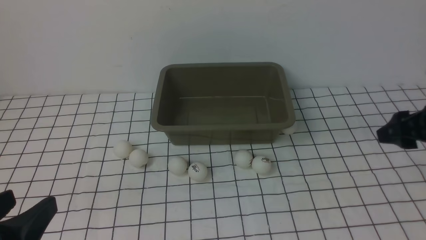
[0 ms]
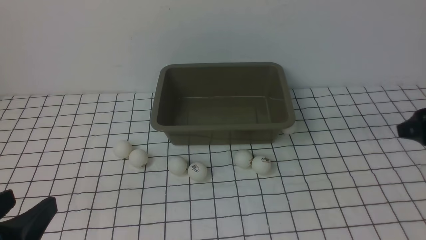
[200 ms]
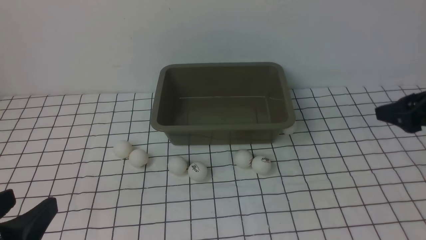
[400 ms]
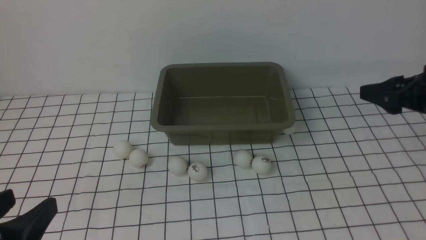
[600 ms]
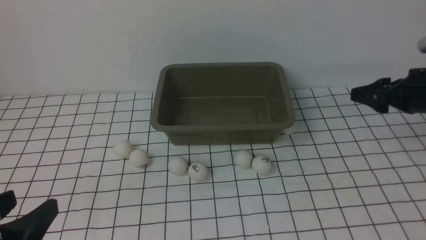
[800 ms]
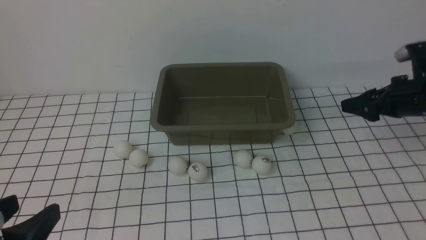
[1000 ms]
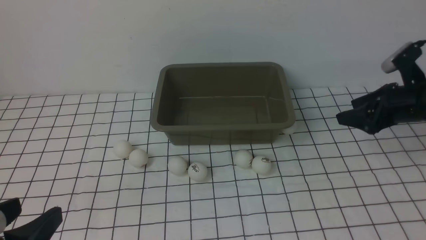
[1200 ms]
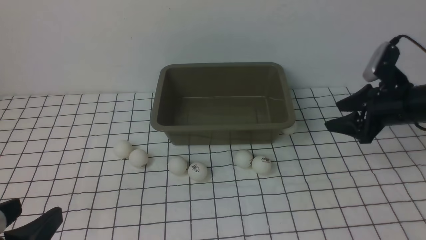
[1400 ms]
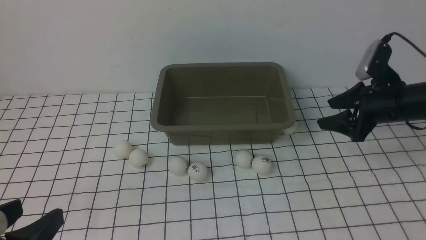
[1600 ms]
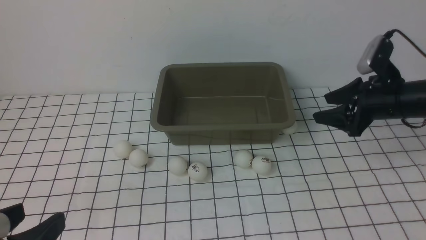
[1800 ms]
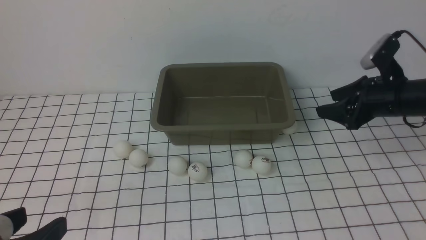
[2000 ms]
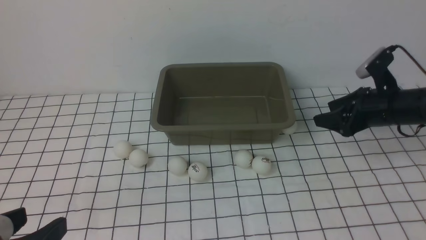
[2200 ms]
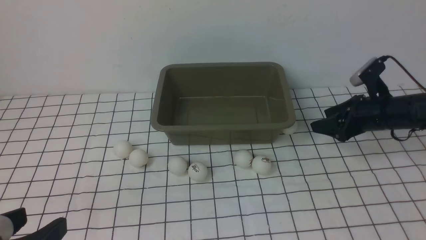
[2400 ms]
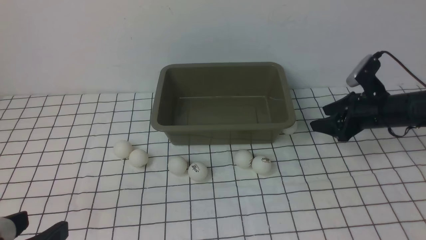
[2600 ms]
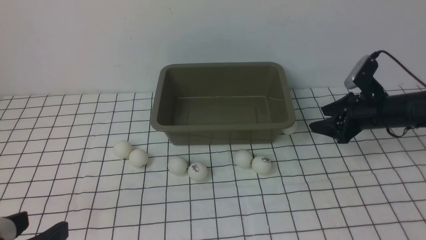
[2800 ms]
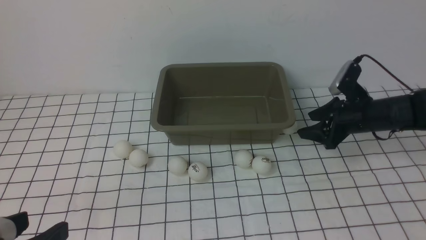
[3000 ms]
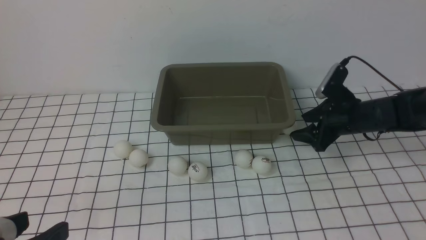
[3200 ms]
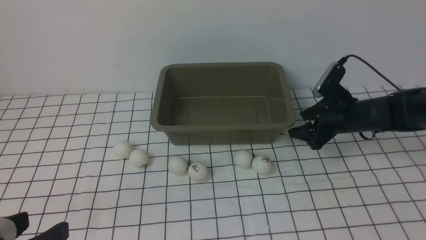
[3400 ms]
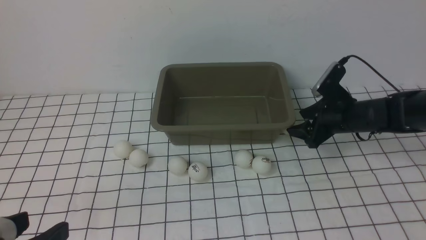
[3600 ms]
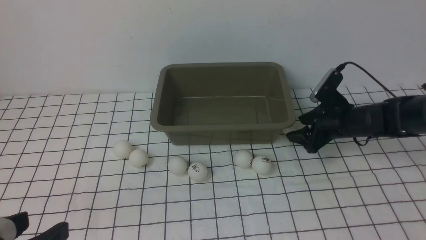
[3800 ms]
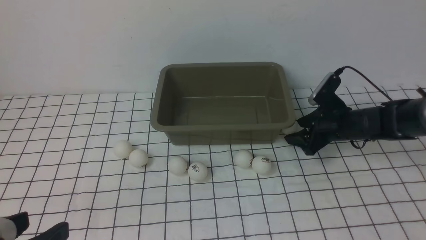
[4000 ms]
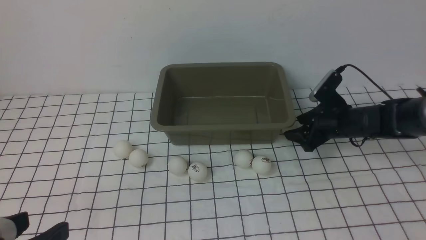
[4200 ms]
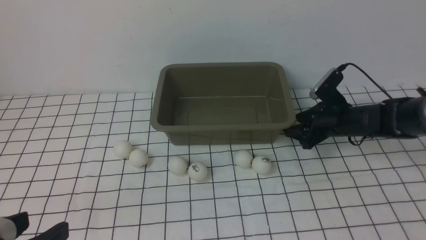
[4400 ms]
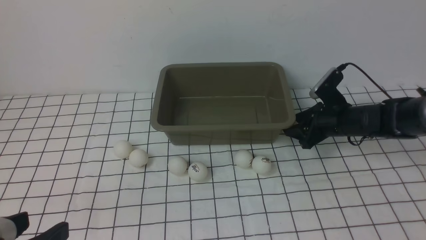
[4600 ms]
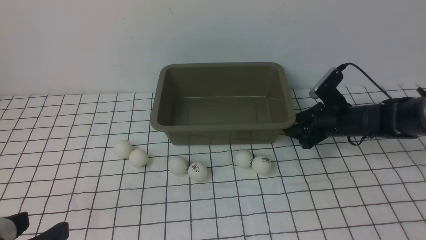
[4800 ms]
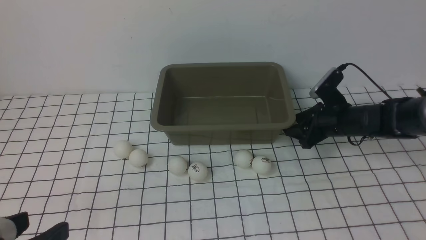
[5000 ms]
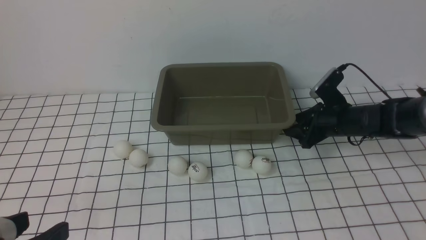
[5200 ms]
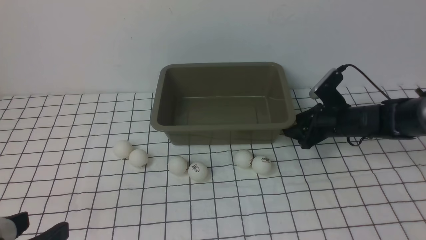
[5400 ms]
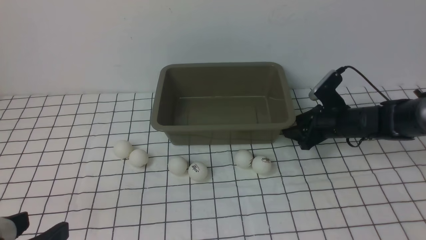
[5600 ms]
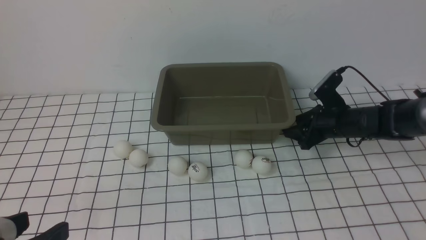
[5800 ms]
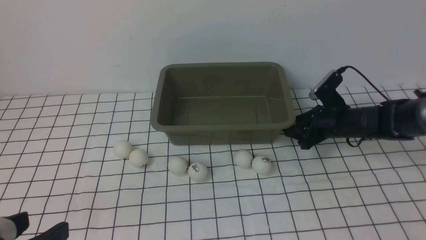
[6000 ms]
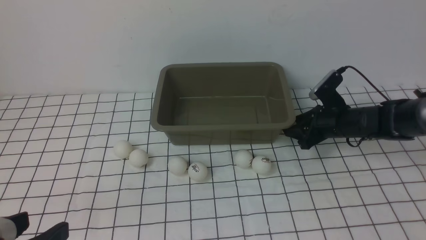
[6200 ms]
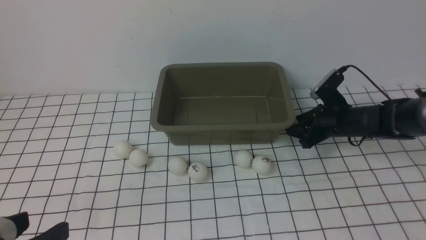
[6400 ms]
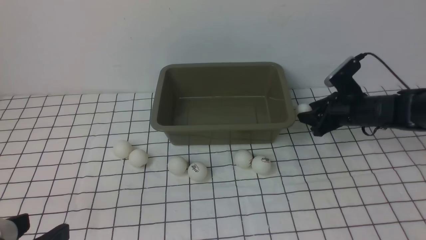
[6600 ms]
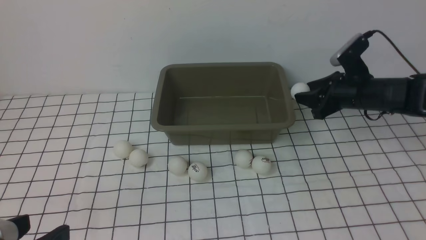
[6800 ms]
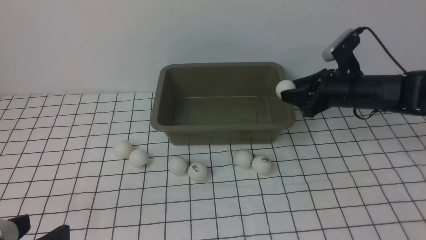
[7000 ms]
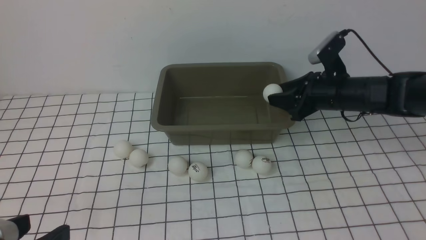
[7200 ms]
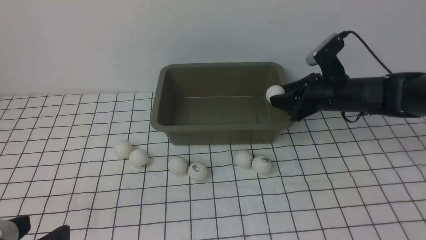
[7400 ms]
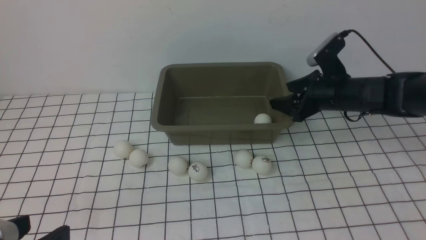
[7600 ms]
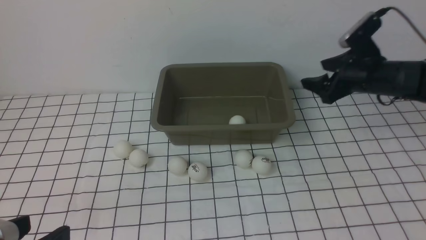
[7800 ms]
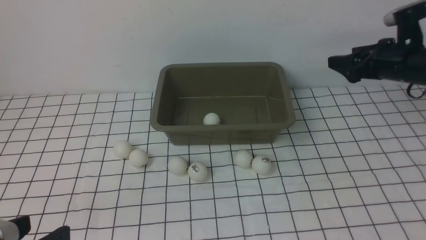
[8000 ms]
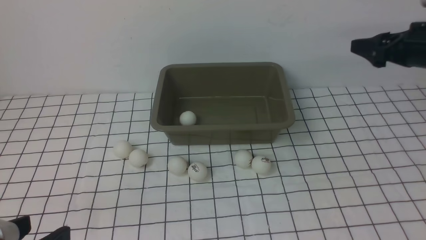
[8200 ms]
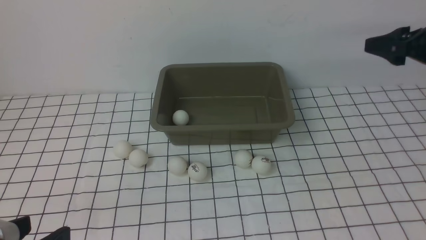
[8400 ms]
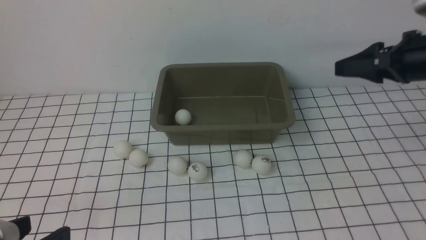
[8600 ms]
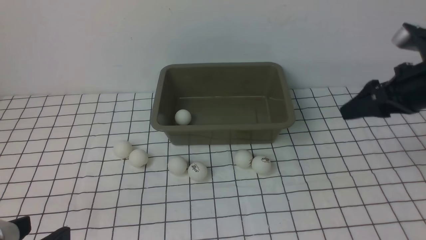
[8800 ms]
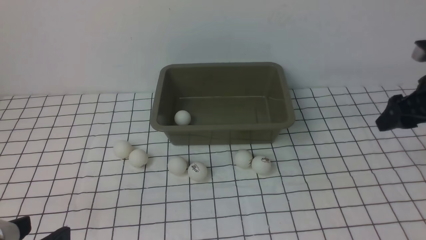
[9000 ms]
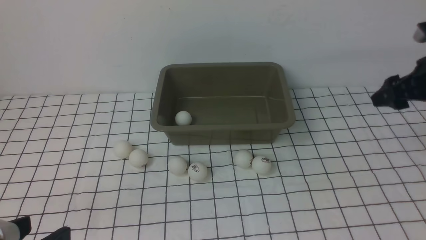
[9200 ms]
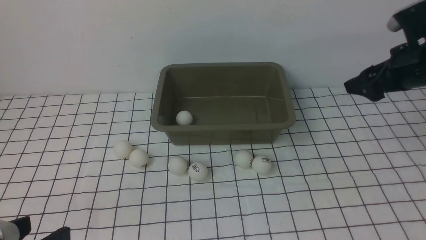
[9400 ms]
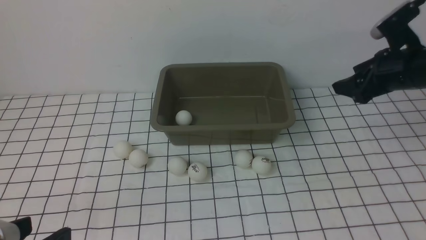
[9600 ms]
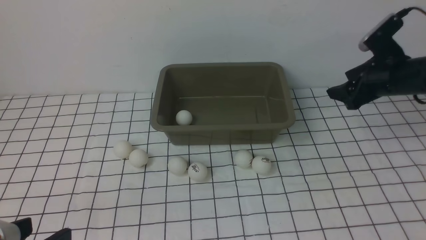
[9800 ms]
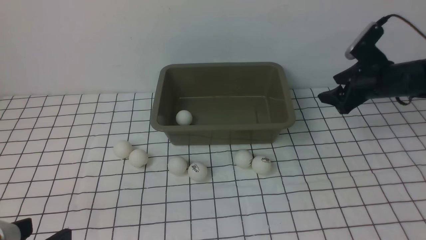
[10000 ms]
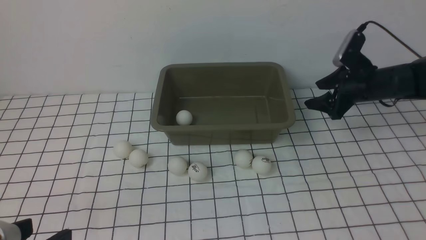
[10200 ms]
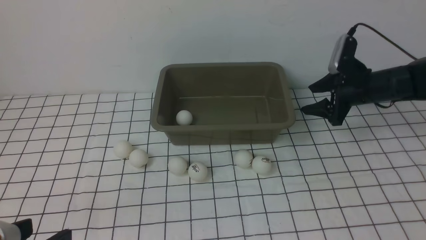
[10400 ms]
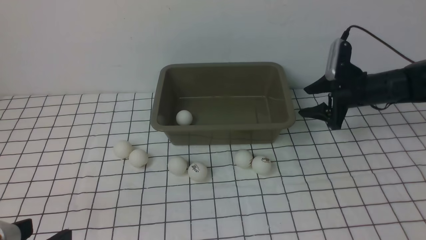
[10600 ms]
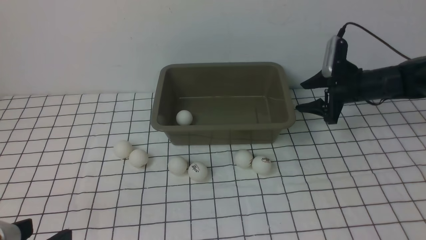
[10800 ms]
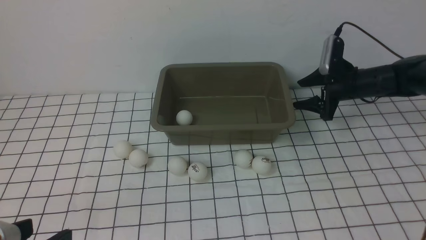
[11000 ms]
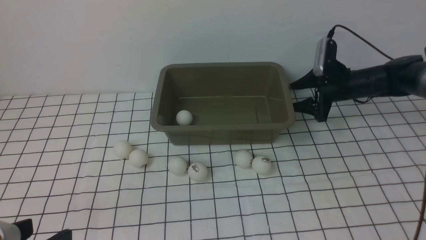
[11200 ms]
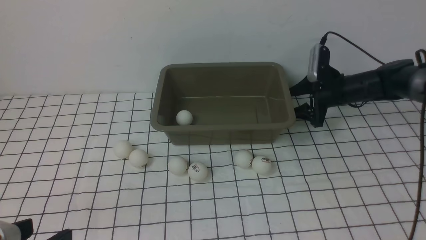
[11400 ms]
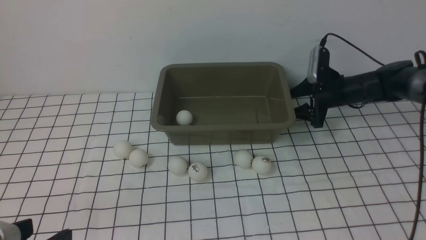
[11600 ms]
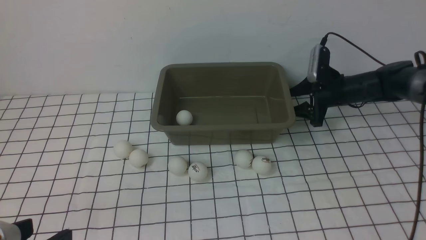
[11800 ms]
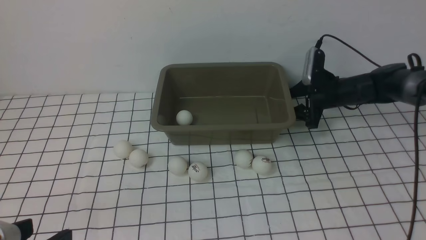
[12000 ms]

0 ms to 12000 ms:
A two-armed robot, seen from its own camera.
Step, 0 ms to 6600 ms: use the right arm to clamp the table tennis ball closest to it.
Step, 6800 ms to 7600 ms: use the right arm to put the table tennis ball into the box.
0 ms to 1600 ms: The right gripper travels forward and downward by approximately 10 cm.
1600 ms to 3000 ms: The right gripper moves downward, some 5 cm.
3000 ms to 4400 ms: The grippers stay close to where they were, moving slightly.
4400 ms to 6000 ms: The right gripper closes.
6000 ms to 7600 ms: The right gripper travels upward by approximately 10 cm, and opens.
7600 ms to 9000 ms: The right gripper heads to the right, backward and upward, covering about 15 cm.
9000 ms to 10400 ms: The right gripper travels forward and downward by some 15 cm.
10400 ms to 12000 ms: The right gripper shifts approximately 5 cm downward and forward.

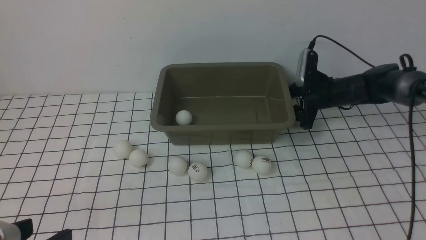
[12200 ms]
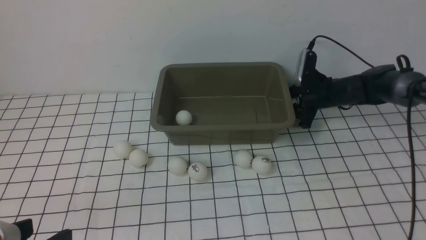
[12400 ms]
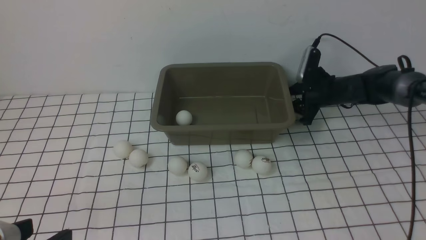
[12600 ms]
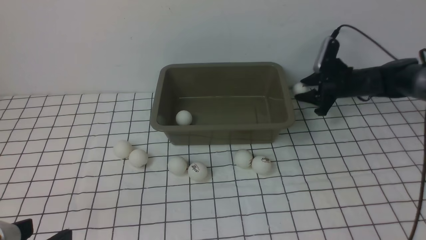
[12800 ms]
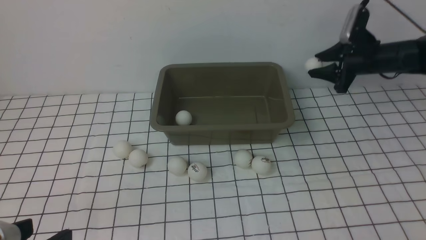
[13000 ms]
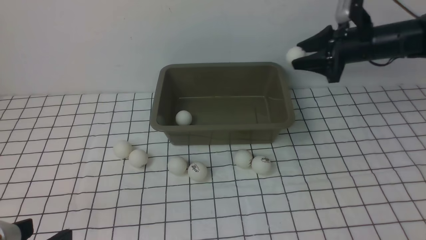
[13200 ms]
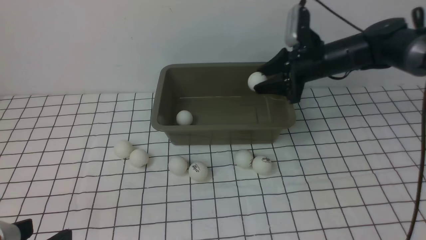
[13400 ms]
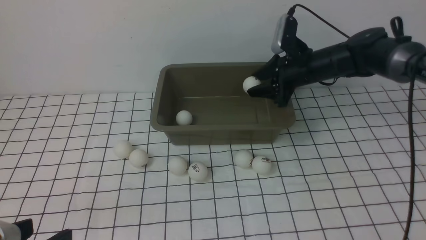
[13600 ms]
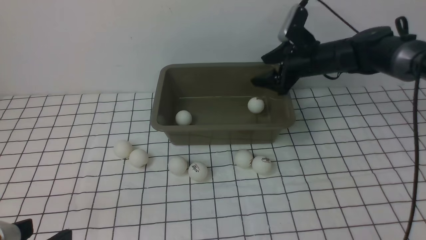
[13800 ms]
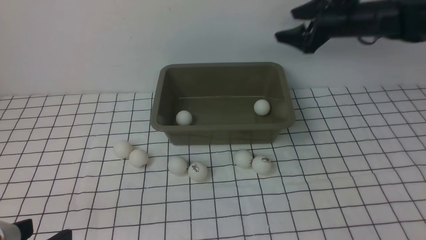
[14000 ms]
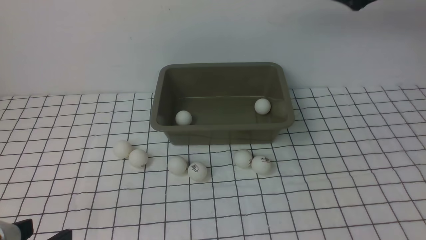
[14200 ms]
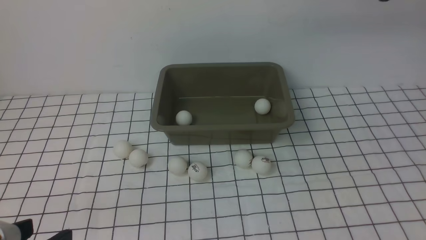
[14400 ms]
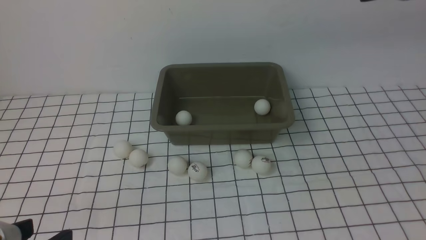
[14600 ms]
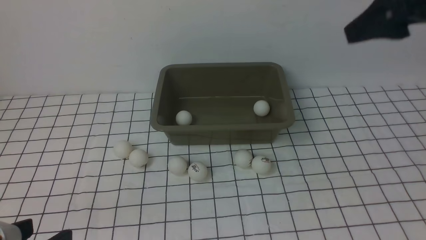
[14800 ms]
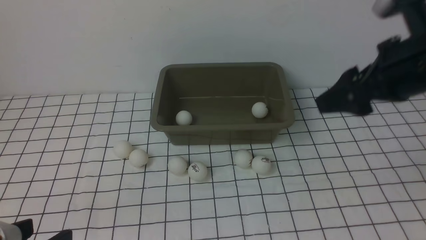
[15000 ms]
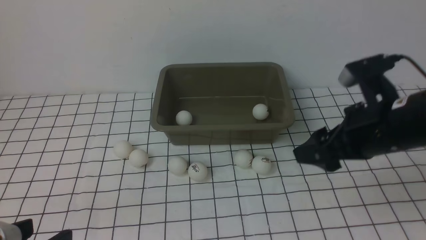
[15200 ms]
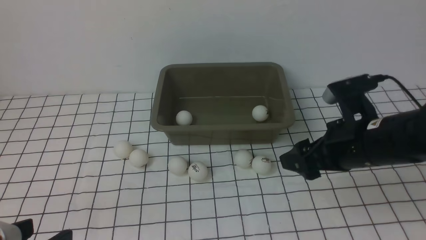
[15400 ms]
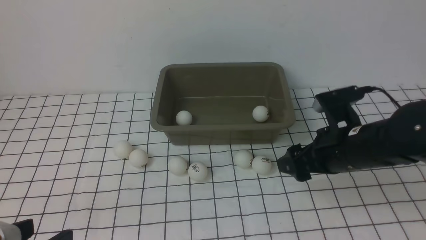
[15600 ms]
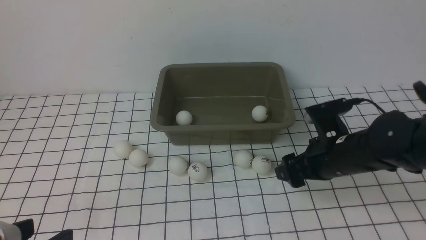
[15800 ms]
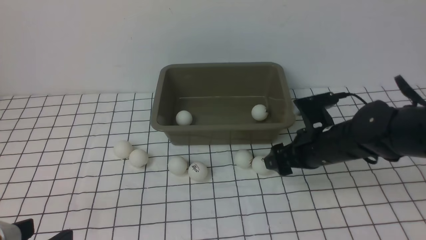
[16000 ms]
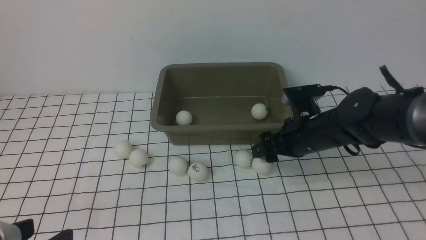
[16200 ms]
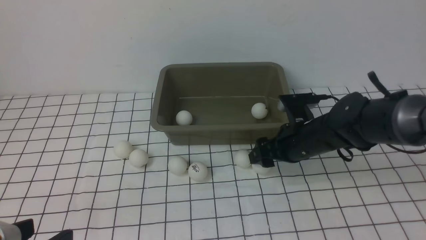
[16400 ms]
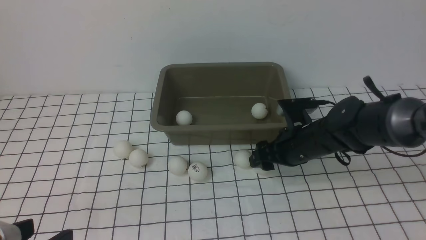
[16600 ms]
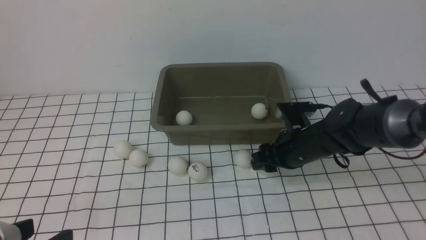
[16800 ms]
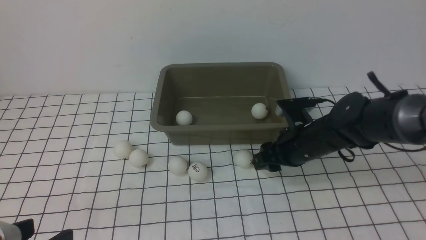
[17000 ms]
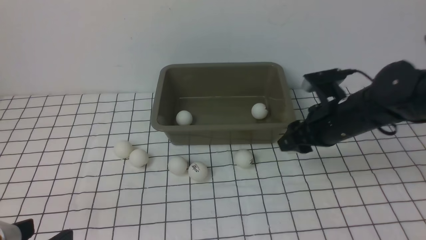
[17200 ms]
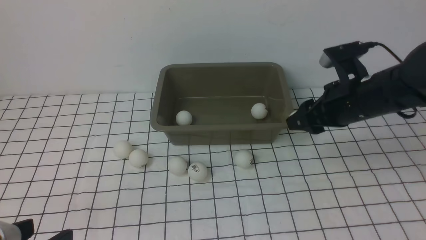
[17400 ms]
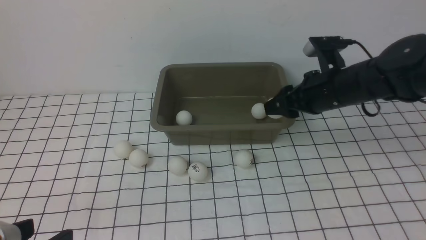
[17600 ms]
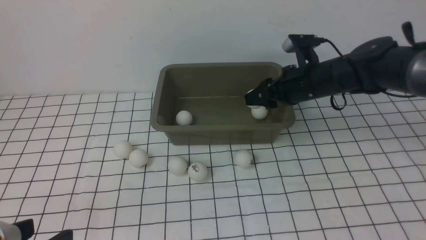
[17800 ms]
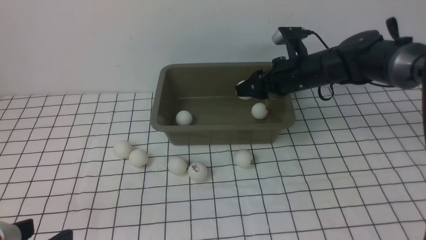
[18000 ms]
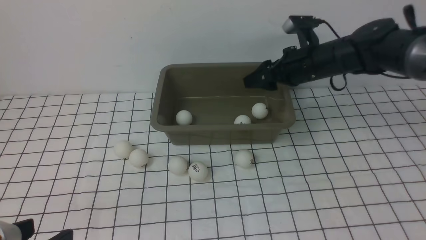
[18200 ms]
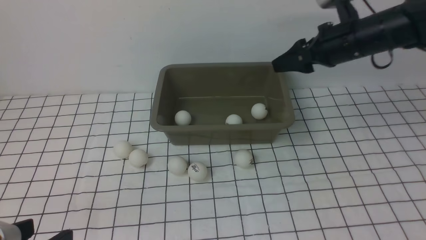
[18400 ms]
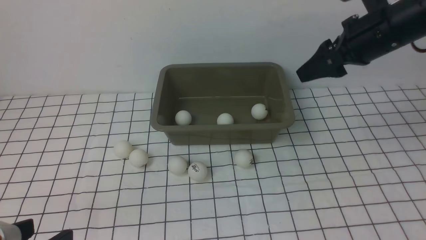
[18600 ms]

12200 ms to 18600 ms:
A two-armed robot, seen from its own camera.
Step, 13000 ms to 13800 ms: use the right arm to put the table tennis ball into the box.
Step, 14000 ms to 17000 ms: use the right arm to clamp the table tennis ball closest to it.
Step, 17400 ms to 18200 ms: use the right arm to put the table tennis ball into the box.
12200 ms to 13800 ms: The right gripper heads upward and to the left, covering roughly 10 cm, and closes, then reopens.
13800 ms to 15400 ms: The right gripper travels backward by roughly 25 cm.
15400 ms to 17000 ms: The right gripper moves downward and forward, about 10 cm, and closes.
17000 ms to 18600 ms: The right gripper shifts approximately 15 cm upward and to the right, and opens its fingers.
